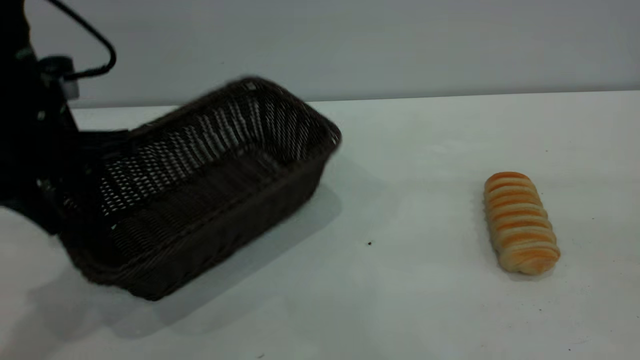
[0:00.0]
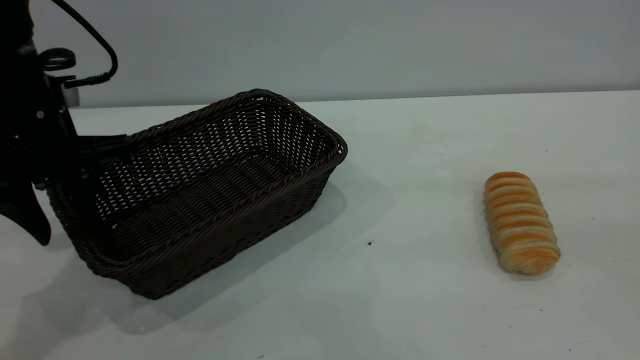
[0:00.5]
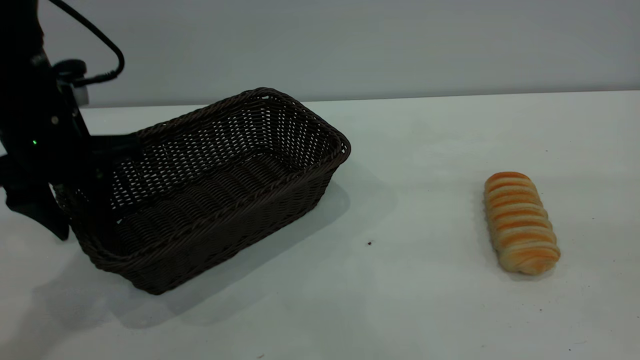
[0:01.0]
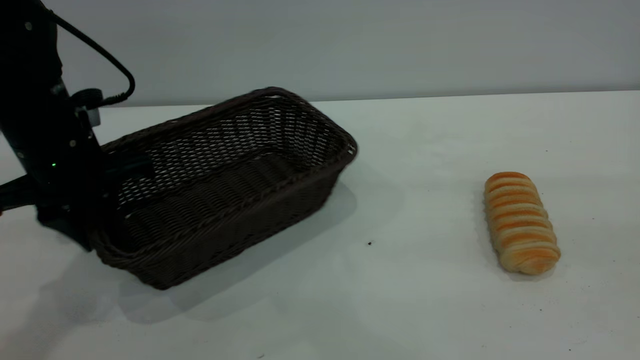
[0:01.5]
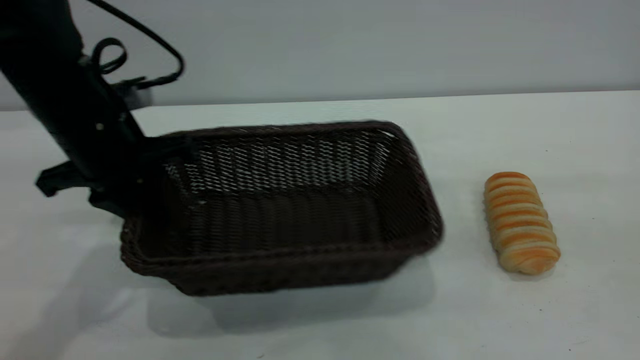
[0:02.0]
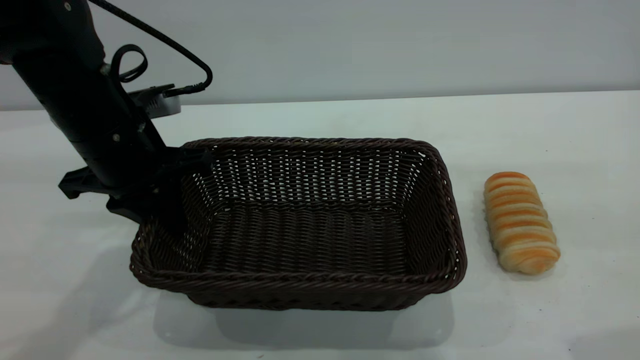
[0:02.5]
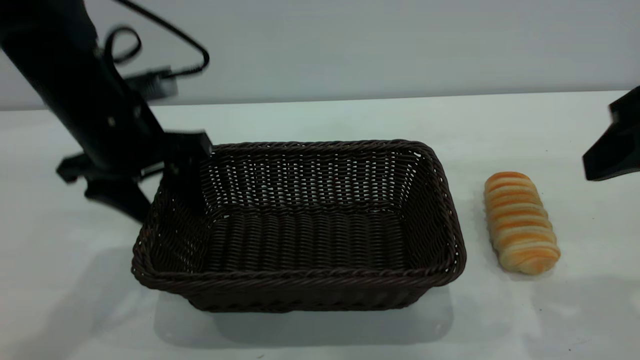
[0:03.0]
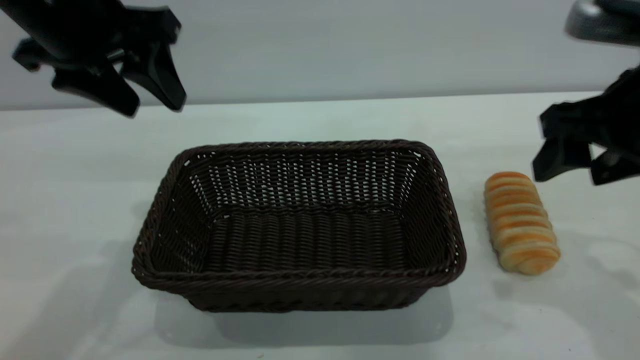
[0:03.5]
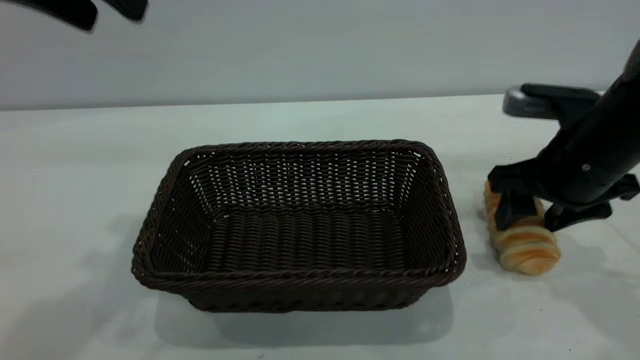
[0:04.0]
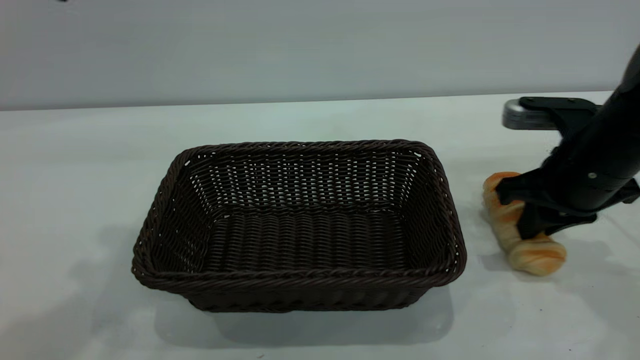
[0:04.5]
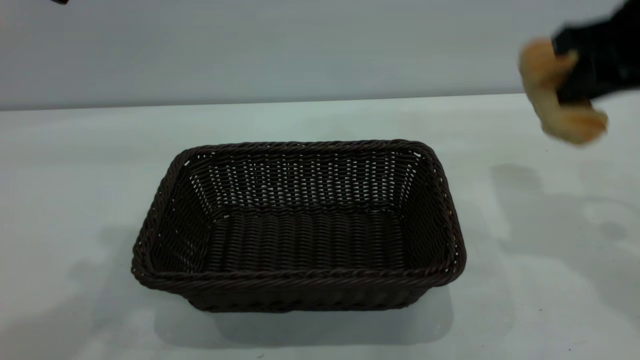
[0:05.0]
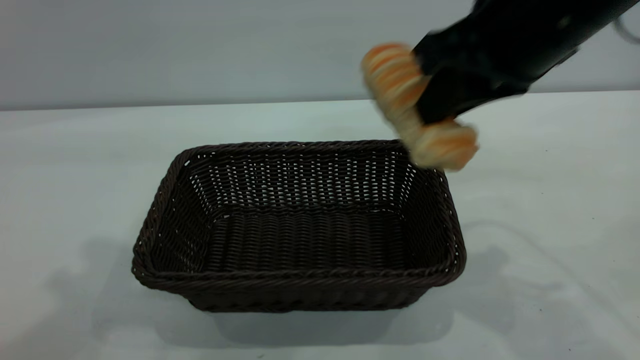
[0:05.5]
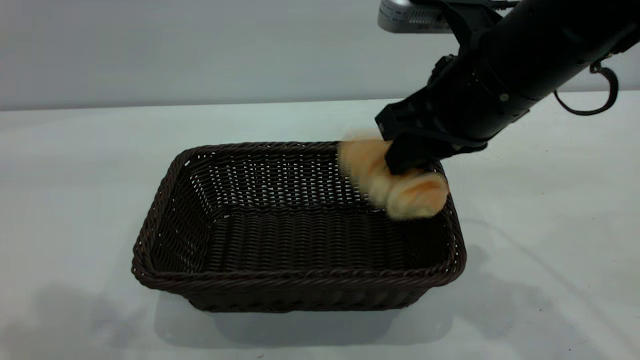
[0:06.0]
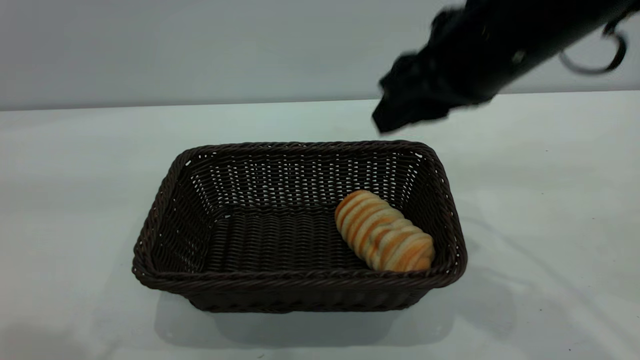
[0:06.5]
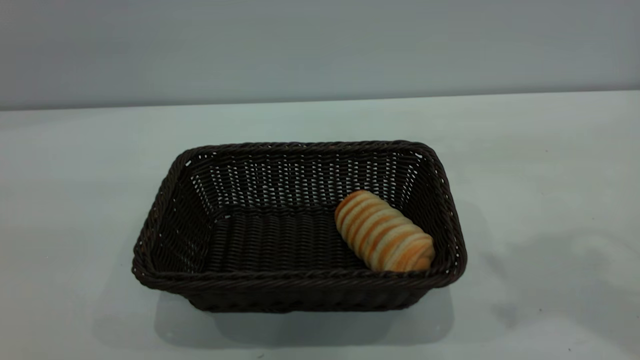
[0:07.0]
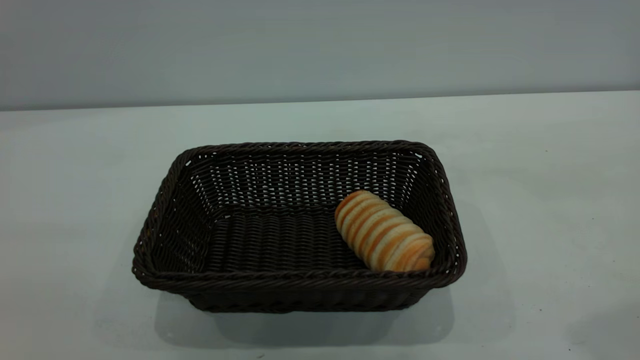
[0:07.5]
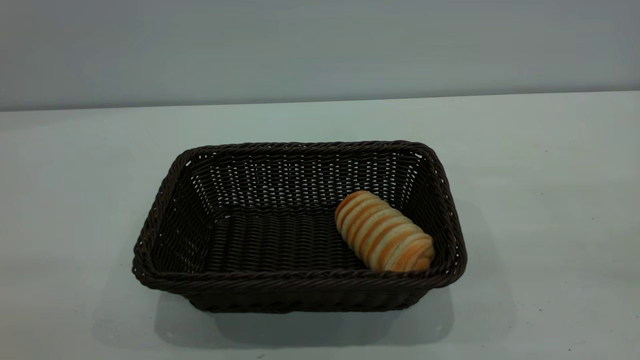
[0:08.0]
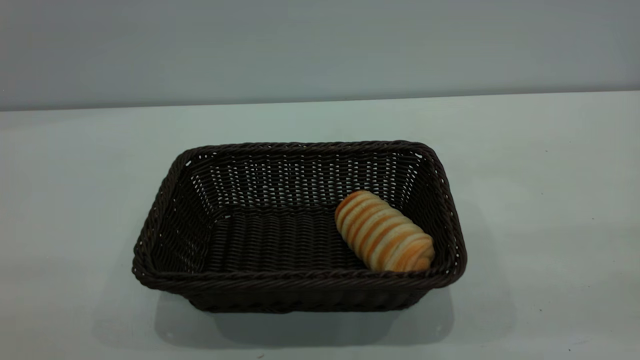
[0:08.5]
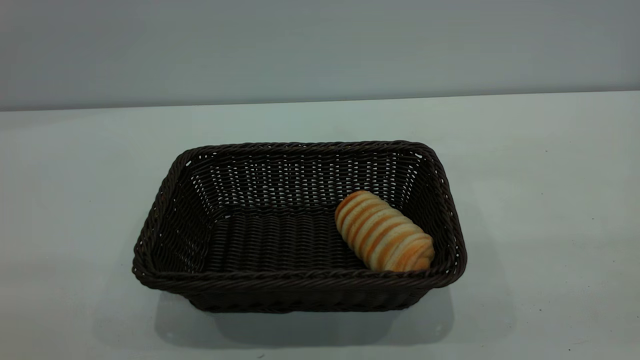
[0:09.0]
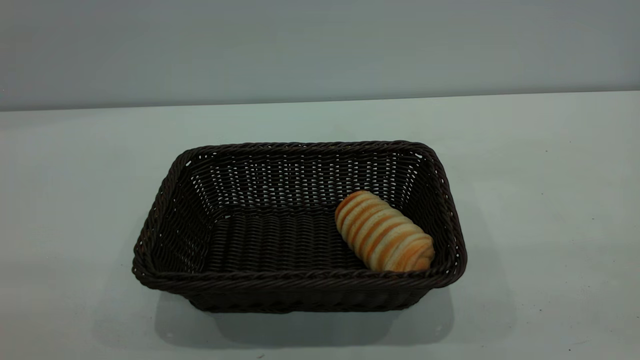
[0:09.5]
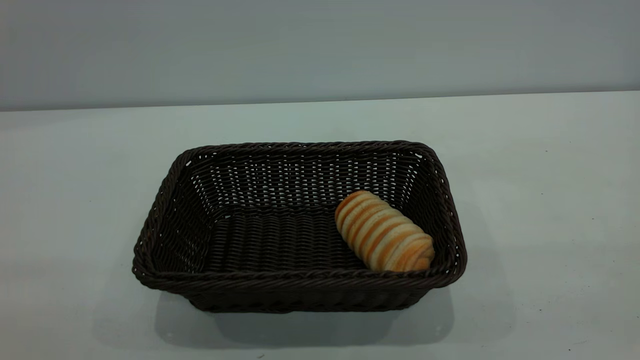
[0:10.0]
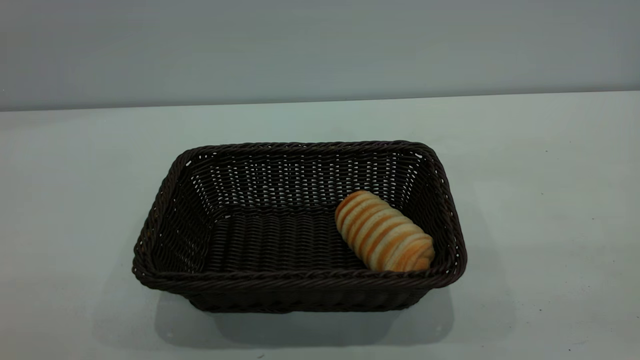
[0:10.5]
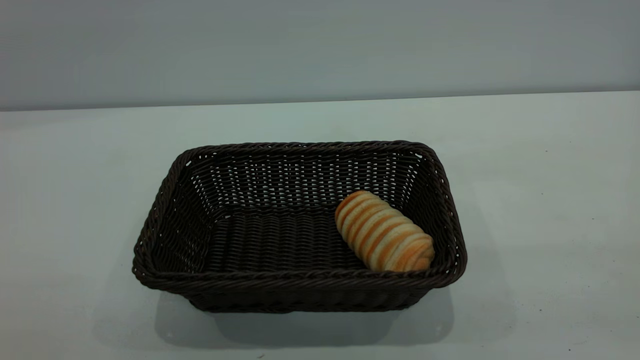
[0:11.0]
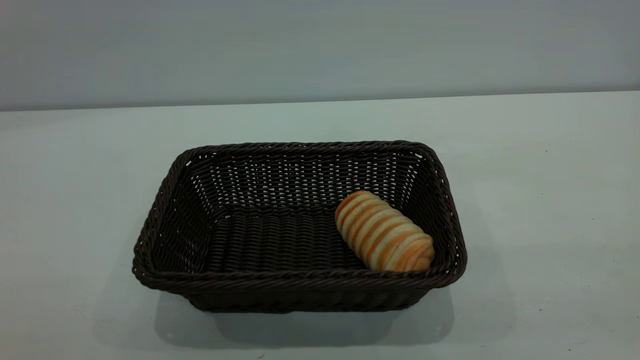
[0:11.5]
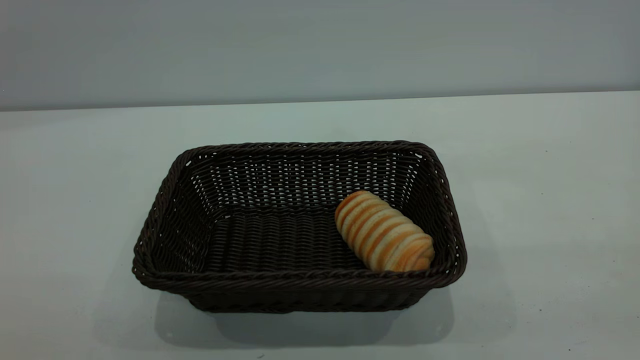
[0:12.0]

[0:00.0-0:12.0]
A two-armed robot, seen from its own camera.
Task of the whole recording: One hand grasps the black basket and places it in the middle of the table, while the other hand picks up the long bread and puts it into the black basket.
Step, 0:00.0 to 0:03.0: Move the basket to the center of view.
Step, 0:05.0 to 0:06.5: place the bread into the basket.
0:00.0 to 0:02.0: The left gripper closes.
0:02.0 to 0:04.0: The right gripper goes approximately 30 cm forward and downward. Meanwhile the left gripper goes roughly 20 cm upward, and opens.
0:04.0 to 0:06.0: The left gripper heads backward, covering about 10 cm. The right gripper moves to the left and upward, about 15 cm, and closes.
0:06.0 to 0:08.0: The left gripper goes some 20 cm backward; the right gripper shifts about 35 cm backward, upward and to the right.
